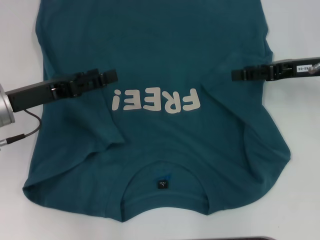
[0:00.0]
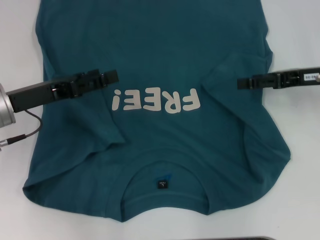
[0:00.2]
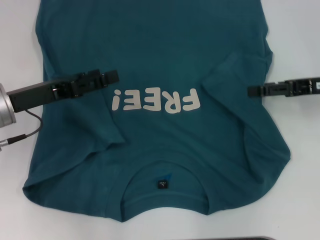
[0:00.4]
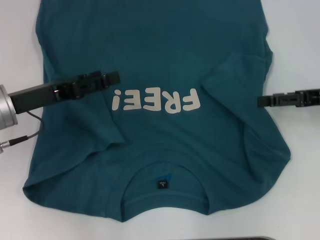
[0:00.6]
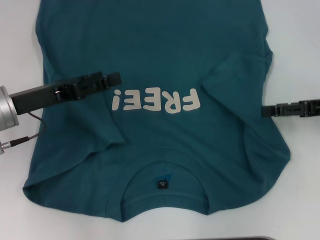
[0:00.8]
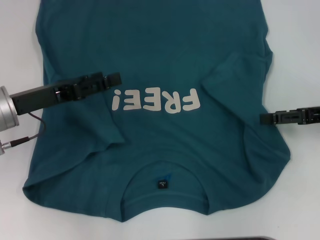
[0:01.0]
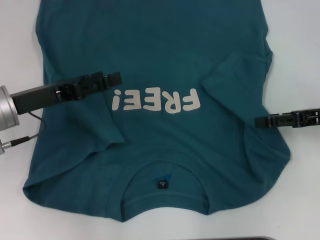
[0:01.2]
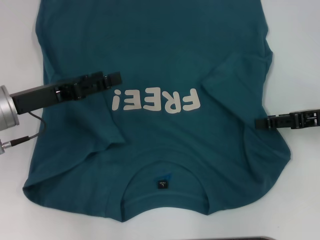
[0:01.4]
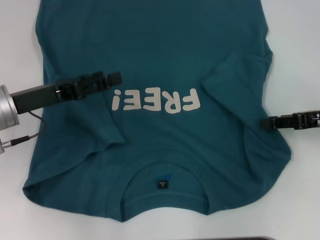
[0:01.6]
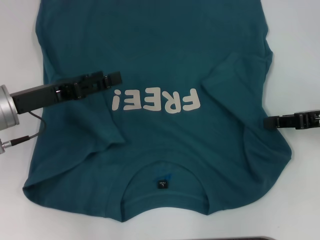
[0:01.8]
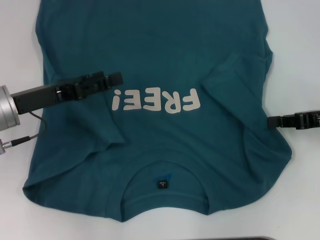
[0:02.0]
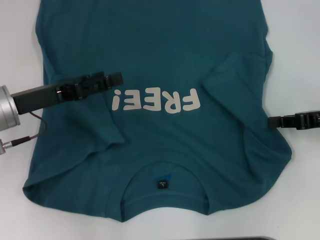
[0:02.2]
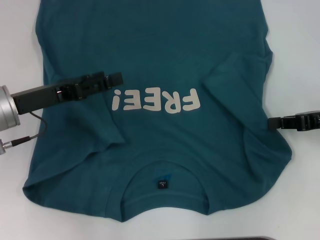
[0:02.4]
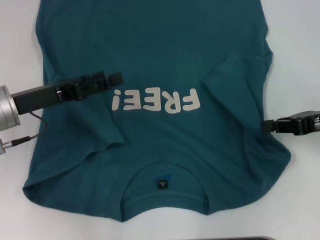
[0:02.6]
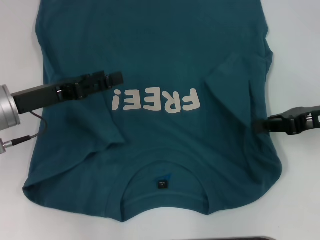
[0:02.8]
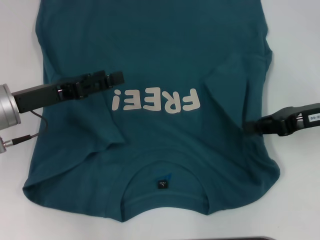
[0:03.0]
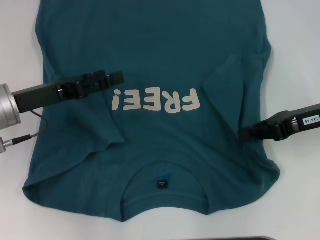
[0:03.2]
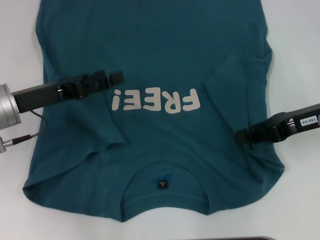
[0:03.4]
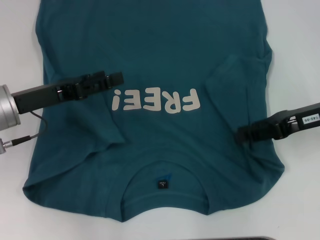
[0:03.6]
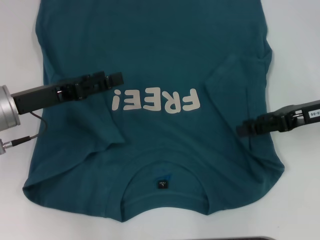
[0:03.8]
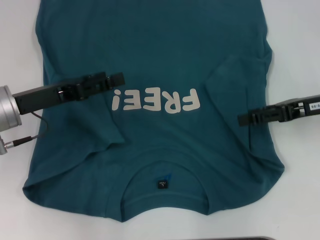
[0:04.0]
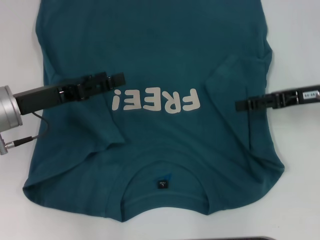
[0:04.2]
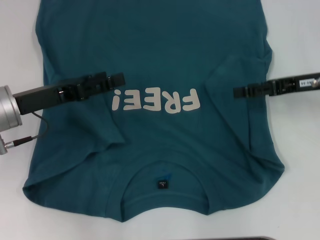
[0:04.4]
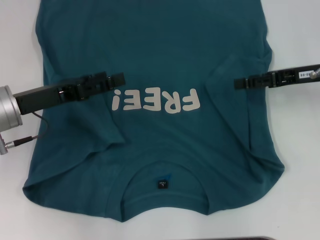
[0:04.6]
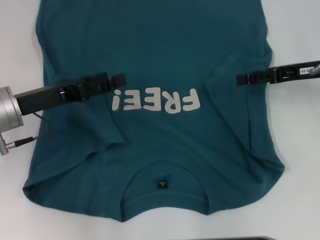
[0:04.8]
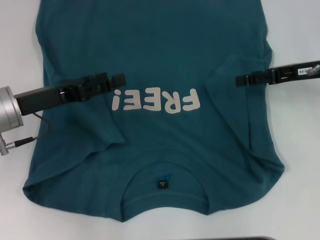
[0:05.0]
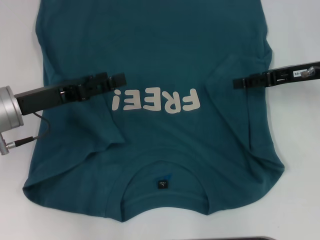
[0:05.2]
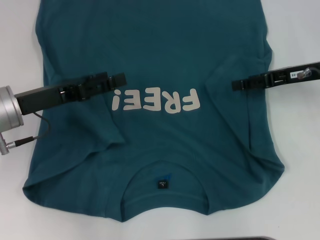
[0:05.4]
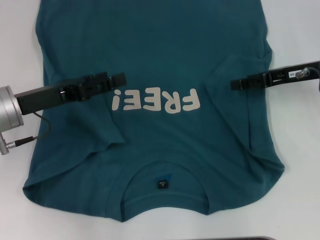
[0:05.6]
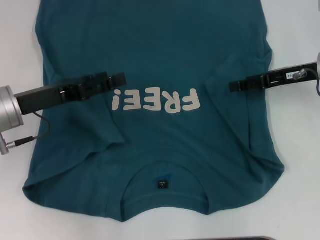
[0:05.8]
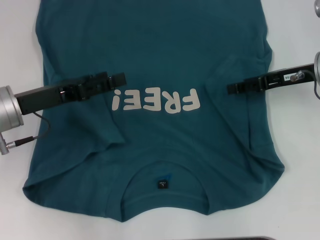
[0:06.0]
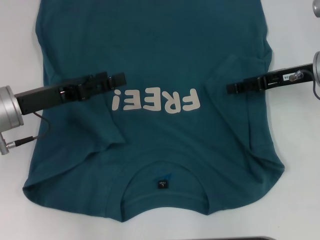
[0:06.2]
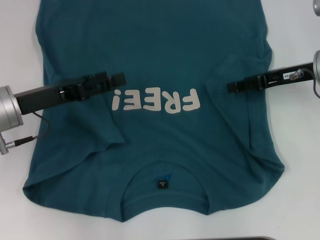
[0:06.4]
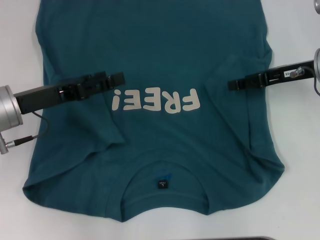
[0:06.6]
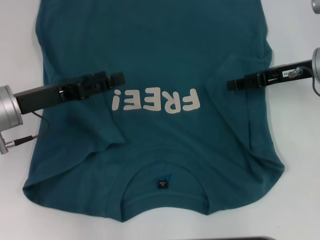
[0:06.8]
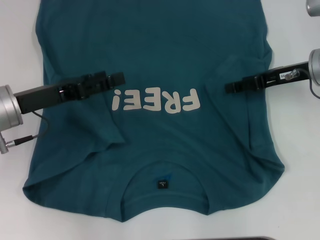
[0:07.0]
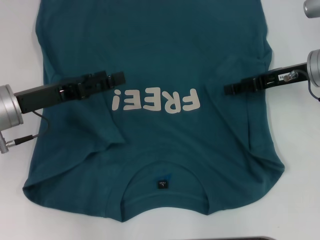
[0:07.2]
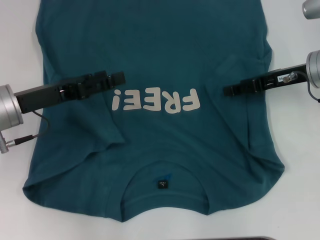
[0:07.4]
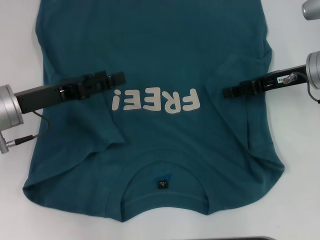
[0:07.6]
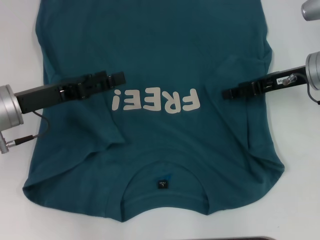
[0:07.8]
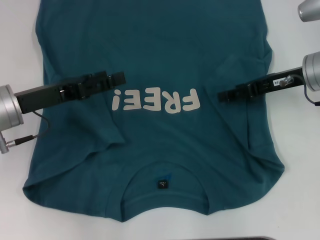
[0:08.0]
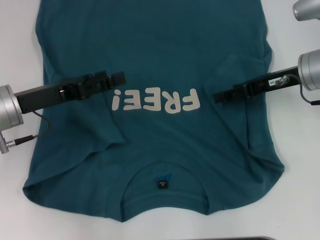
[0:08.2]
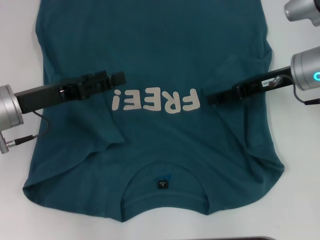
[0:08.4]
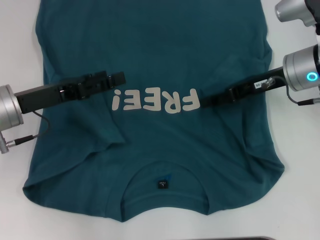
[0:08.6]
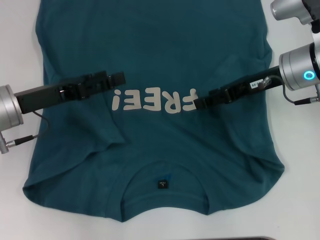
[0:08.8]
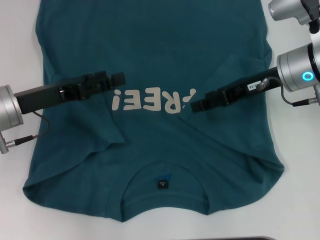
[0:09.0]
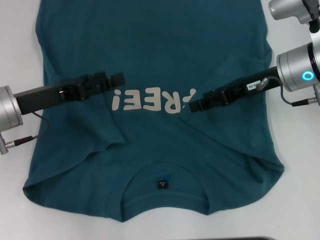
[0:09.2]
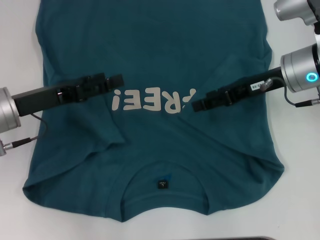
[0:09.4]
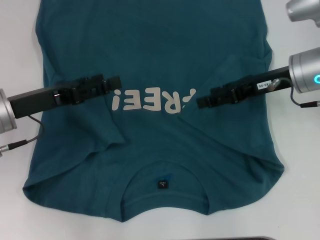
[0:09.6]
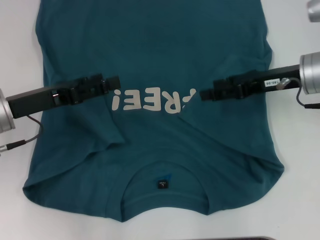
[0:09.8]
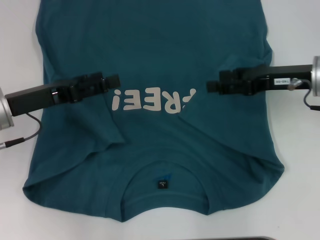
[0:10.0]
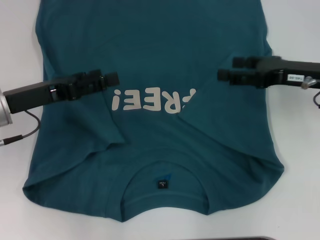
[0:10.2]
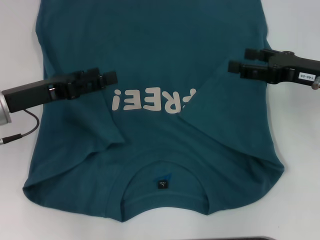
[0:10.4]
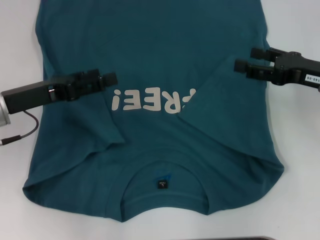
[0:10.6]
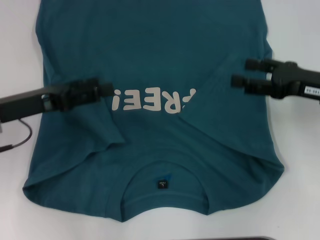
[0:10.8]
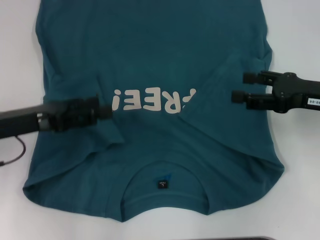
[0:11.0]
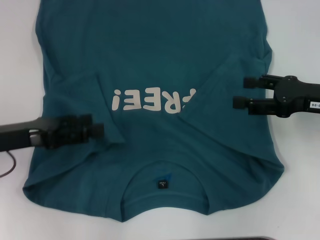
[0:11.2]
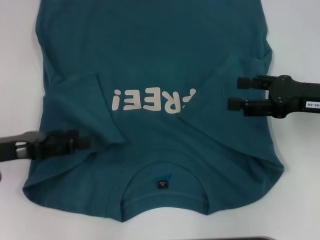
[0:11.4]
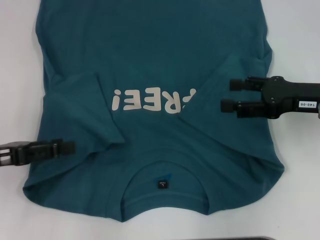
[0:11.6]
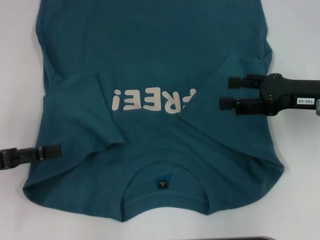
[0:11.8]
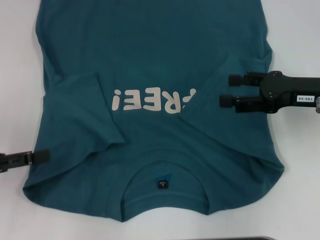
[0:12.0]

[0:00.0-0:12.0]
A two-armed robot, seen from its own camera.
Step, 0:00.0 to 0:09.4: Fold the bottom right sleeve to the right.
0:00.0 to 0:01.6: The right gripper shifts roughly 5 cm backward.
0:01.6 to 0:03.0: The right gripper closes its fingers.
0:03.0 to 0:04.4: The right gripper opens.
0:04.4 to 0:06.0: The grippers move only a little.
0:06.0 to 0:07.6: Neither gripper changes place.
0:07.6 to 0:09.0: The right gripper ends up roughly 5 cm from where it was.
0:09.0 to 0:10.4: The right gripper travels to the right by approximately 5 cm.
0:10.4 to 0:12.0: The left gripper goes approximately 10 cm to the left and backward.

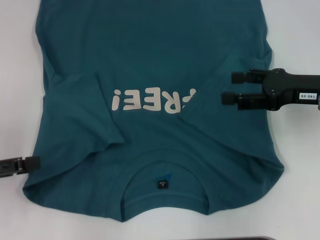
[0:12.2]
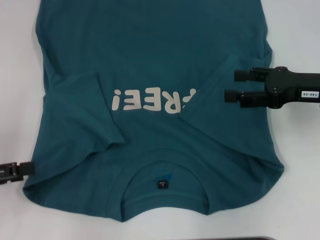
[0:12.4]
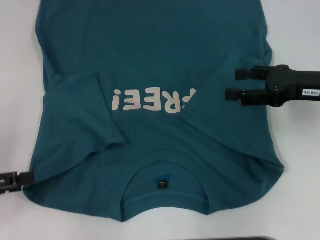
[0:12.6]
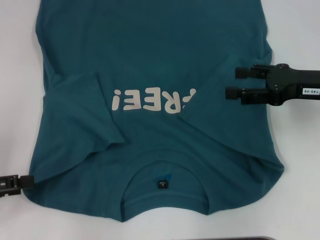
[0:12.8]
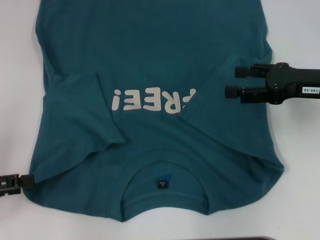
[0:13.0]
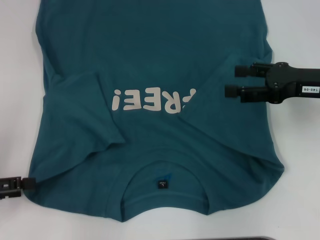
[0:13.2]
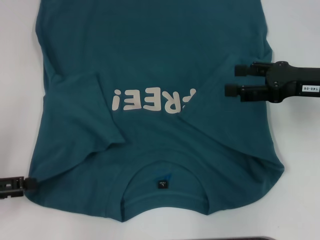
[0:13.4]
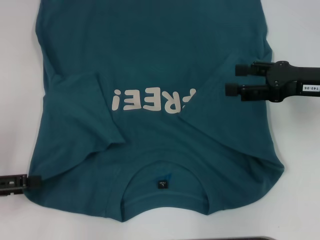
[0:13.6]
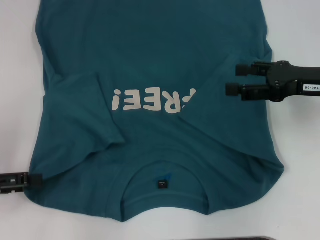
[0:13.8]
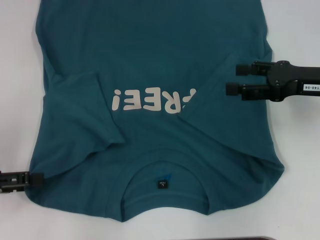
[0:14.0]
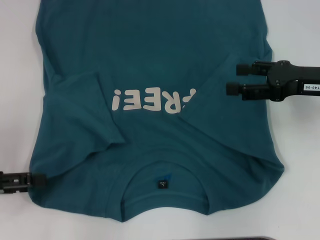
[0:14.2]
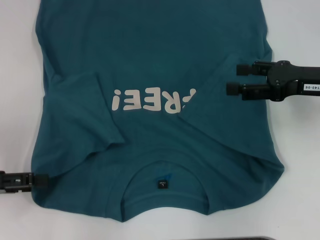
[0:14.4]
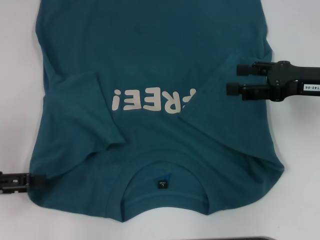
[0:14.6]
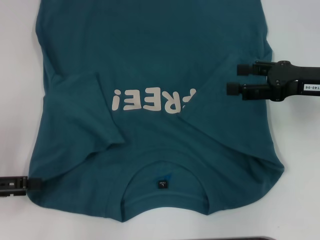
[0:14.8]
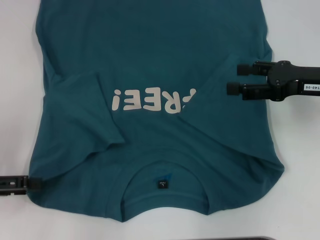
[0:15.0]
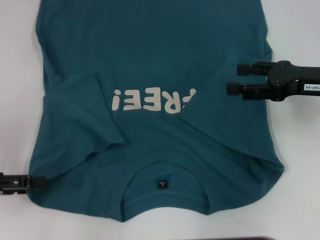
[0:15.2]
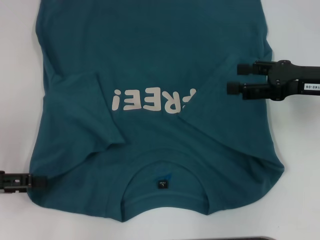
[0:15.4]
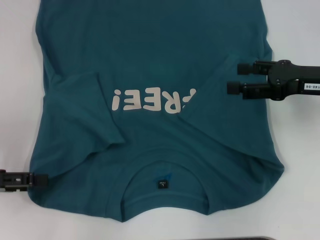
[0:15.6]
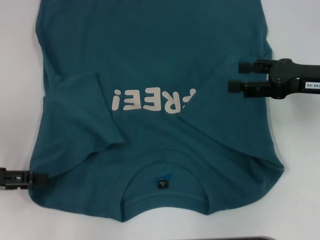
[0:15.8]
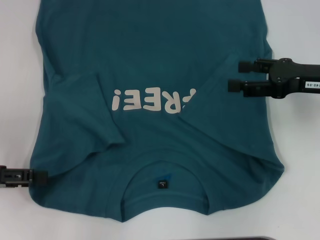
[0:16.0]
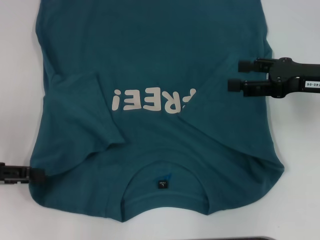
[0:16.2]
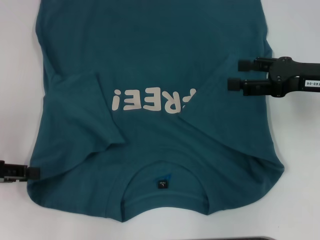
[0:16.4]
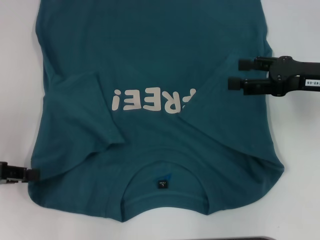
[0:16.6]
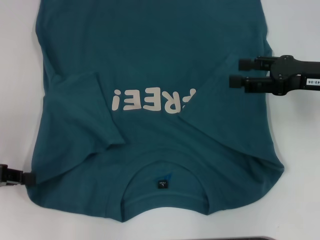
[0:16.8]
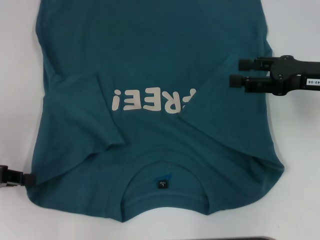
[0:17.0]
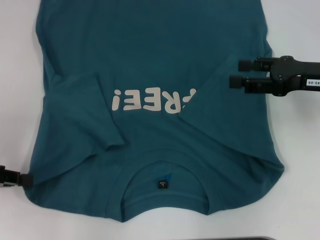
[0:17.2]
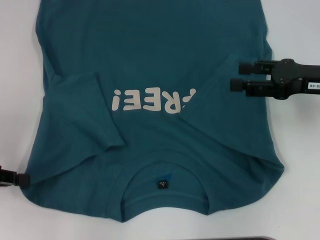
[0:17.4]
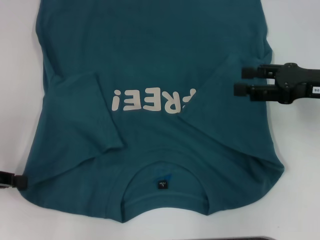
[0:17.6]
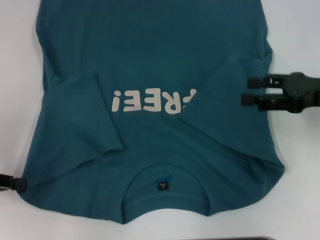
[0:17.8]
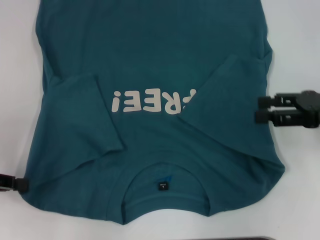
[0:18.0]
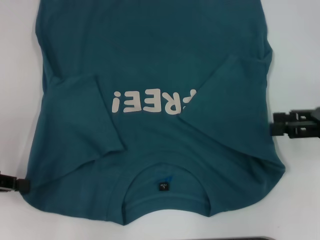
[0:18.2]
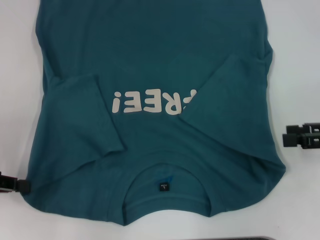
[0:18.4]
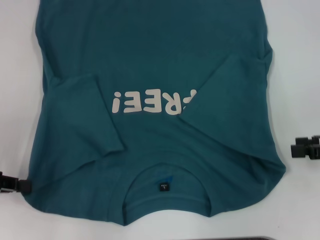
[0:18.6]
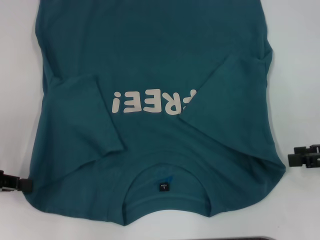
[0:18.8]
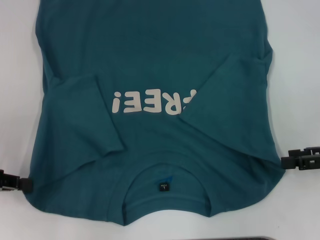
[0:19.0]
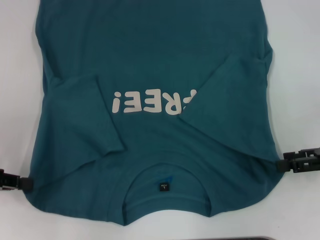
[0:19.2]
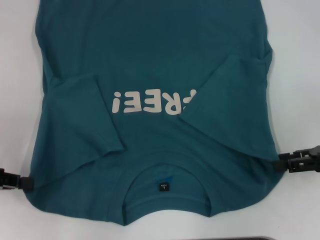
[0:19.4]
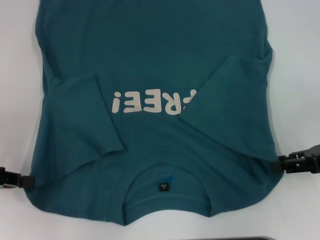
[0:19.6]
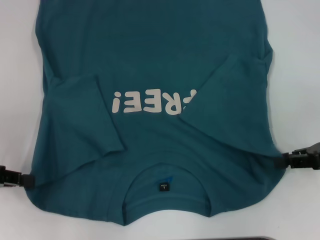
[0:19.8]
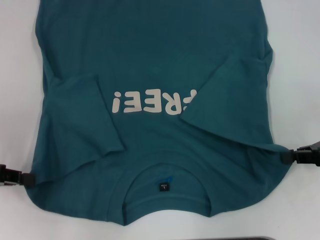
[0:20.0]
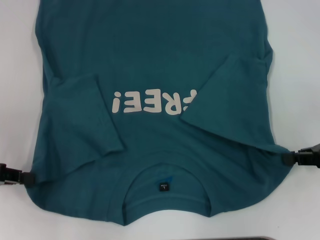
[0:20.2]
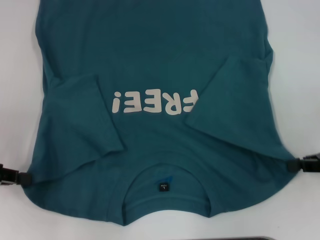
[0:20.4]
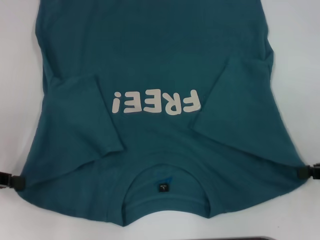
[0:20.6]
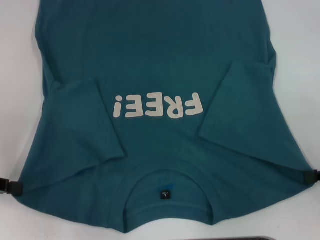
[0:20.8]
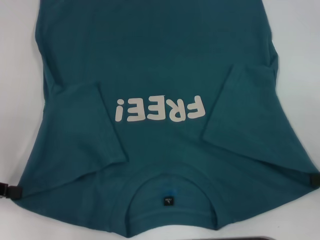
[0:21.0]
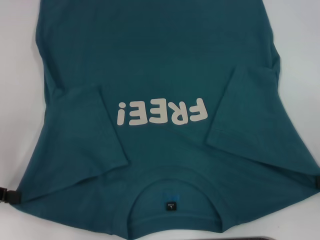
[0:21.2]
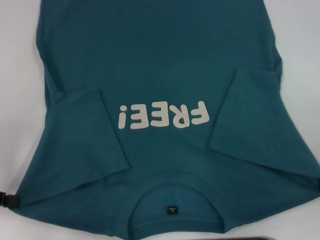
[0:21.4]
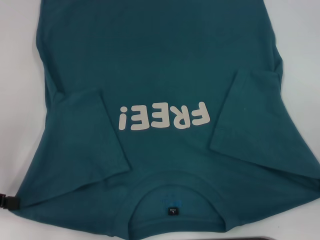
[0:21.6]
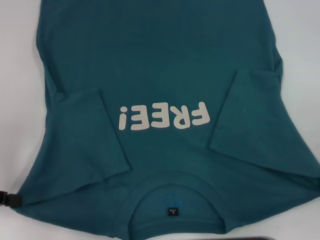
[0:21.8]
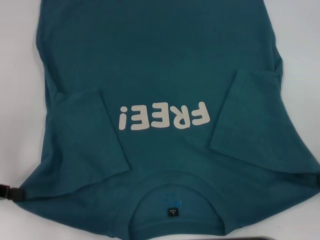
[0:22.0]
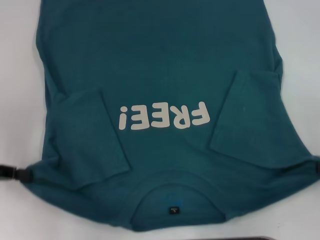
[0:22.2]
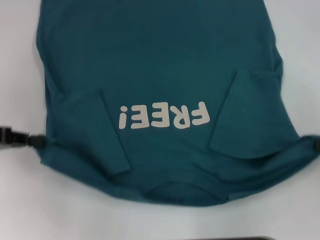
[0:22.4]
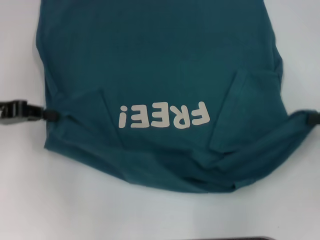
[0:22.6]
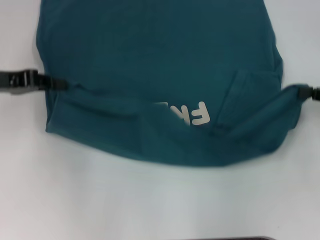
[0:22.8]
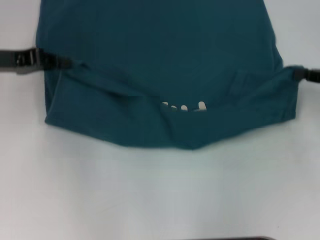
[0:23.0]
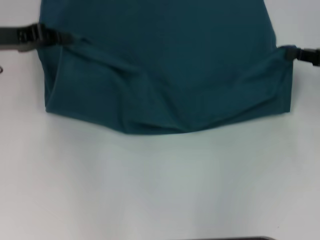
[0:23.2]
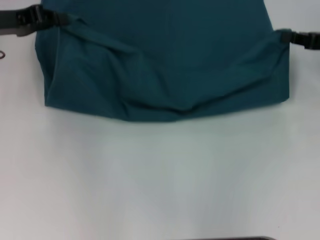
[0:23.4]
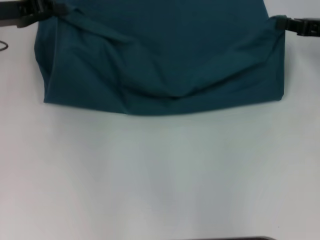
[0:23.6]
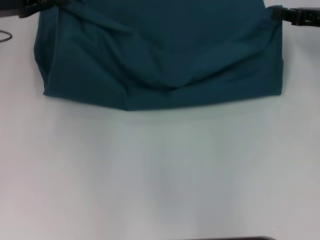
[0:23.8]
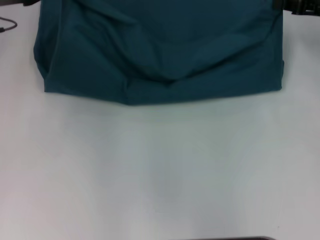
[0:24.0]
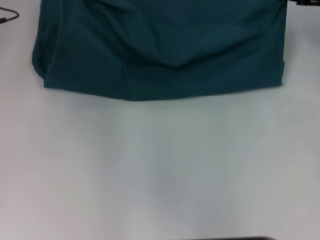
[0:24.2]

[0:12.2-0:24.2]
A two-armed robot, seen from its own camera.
Step, 0:12.2 to 0:17.6: Grab the bottom left corner with your left hand.
Step, 0:17.8 to 0:21.6: Grab the bottom right corner with your right hand.
0:12.2 to 0:13.8: The grippers move only a little.
0:13.8 to 0:15.2: Both grippers stay about where they are.
0:15.2 to 0:16.6: The left gripper closes.
0:16.6 to 0:18.2: The right gripper changes place by some 5 cm; the left gripper closes.
0:18.2 to 0:19.8: The grippers move only a little.
0:19.8 to 0:21.2: The right gripper goes roughly 10 cm backward and to the right, and closes its fingers.
0:21.2 to 0:22.6: Both grippers travel together forward, some 5 cm.
0:22.6 to 0:24.2: The left gripper moves forward, to the right and upward, approximately 15 cm, while the right gripper heads forward, covering roughly 15 cm.
